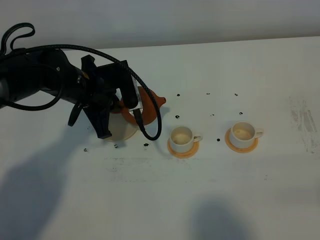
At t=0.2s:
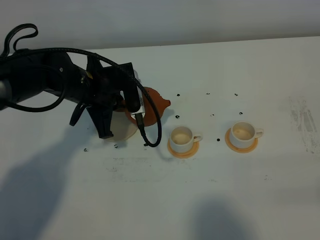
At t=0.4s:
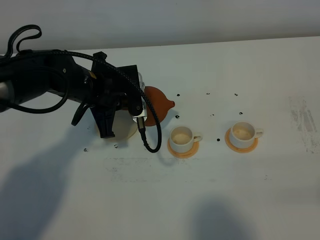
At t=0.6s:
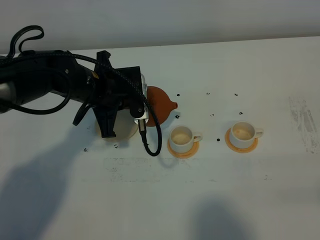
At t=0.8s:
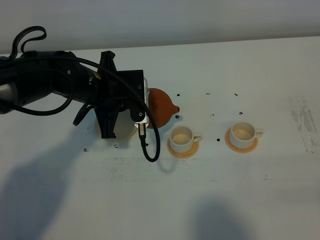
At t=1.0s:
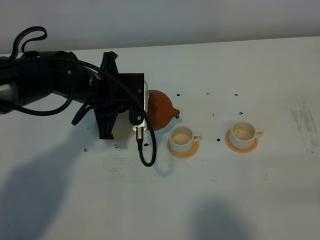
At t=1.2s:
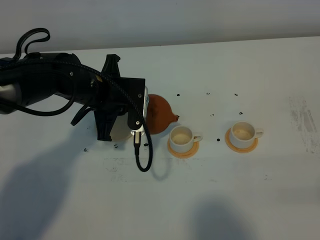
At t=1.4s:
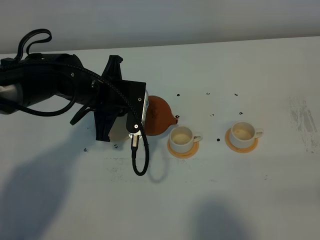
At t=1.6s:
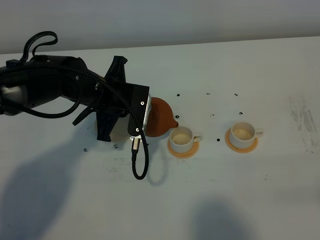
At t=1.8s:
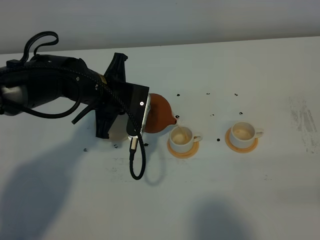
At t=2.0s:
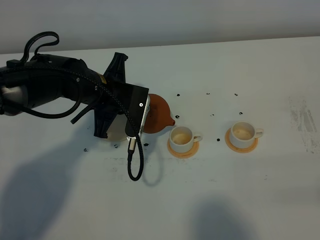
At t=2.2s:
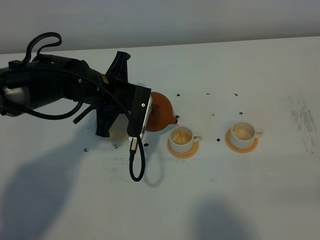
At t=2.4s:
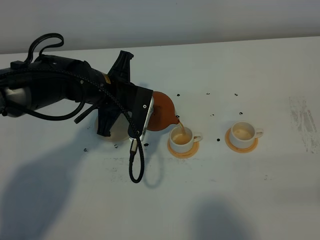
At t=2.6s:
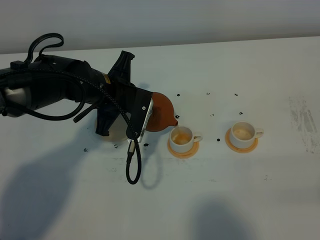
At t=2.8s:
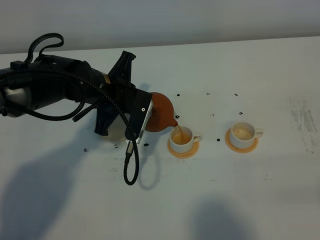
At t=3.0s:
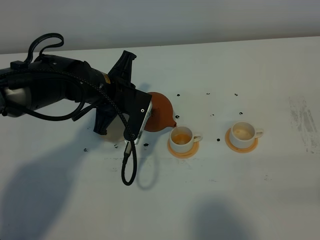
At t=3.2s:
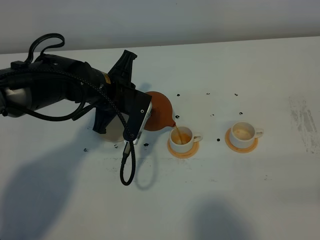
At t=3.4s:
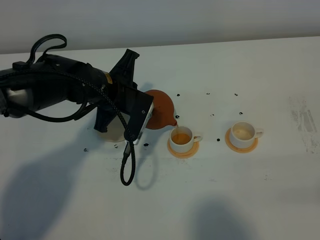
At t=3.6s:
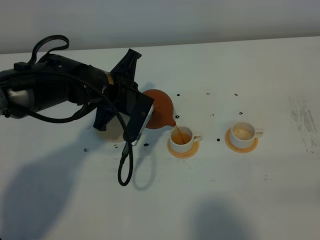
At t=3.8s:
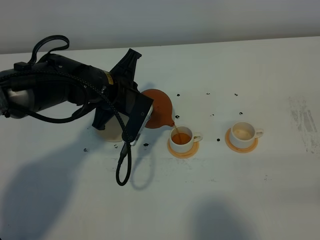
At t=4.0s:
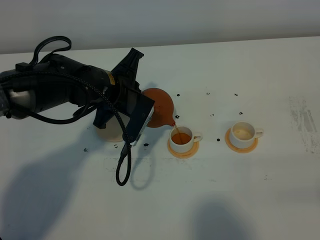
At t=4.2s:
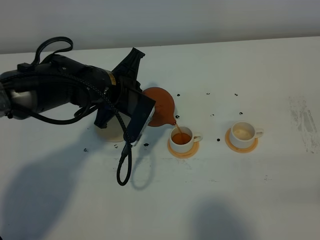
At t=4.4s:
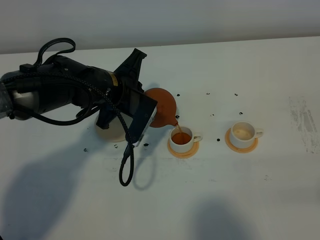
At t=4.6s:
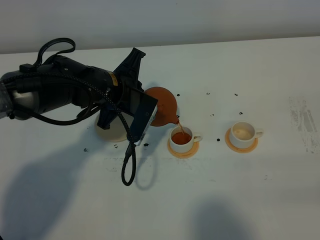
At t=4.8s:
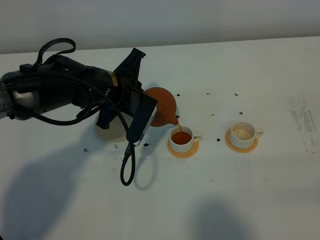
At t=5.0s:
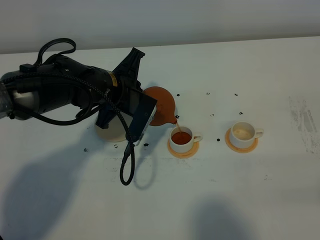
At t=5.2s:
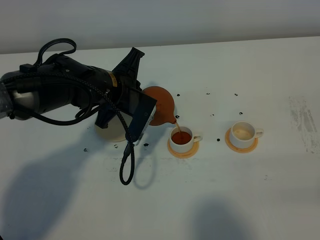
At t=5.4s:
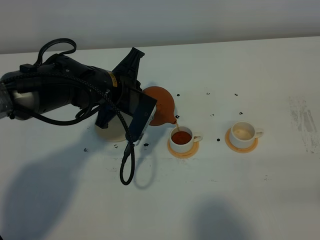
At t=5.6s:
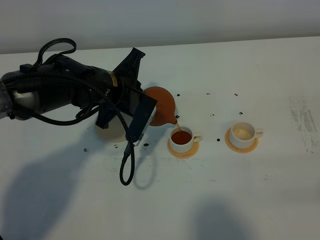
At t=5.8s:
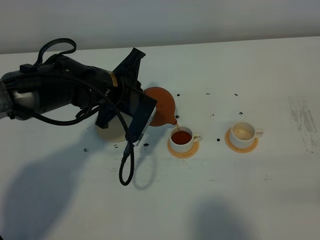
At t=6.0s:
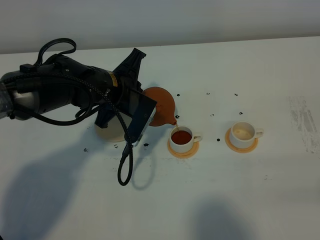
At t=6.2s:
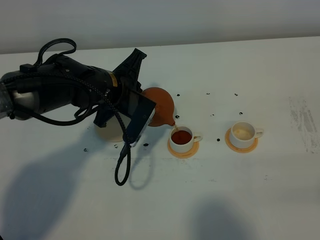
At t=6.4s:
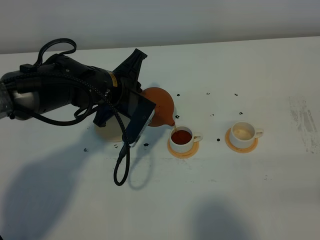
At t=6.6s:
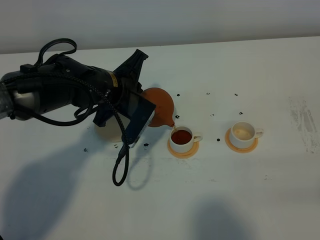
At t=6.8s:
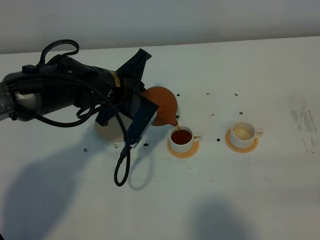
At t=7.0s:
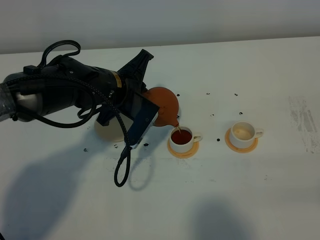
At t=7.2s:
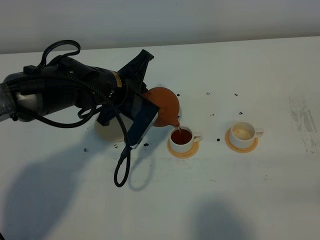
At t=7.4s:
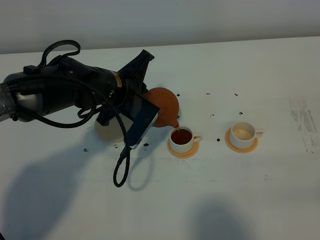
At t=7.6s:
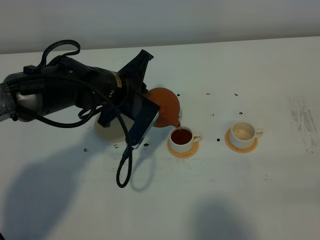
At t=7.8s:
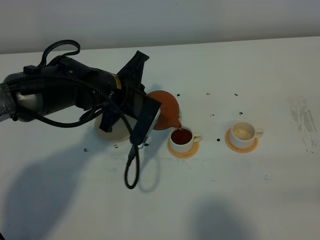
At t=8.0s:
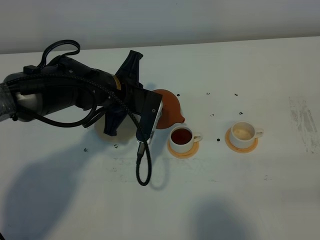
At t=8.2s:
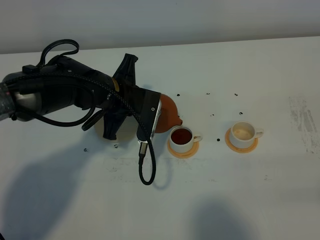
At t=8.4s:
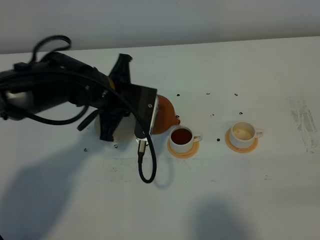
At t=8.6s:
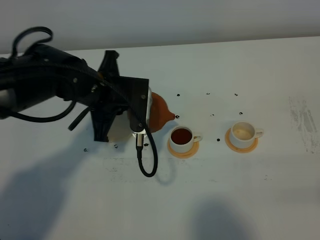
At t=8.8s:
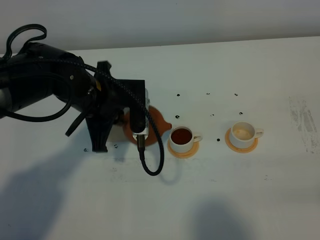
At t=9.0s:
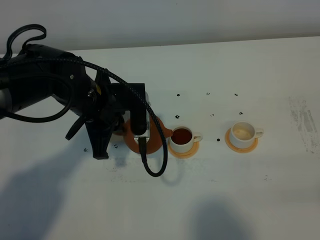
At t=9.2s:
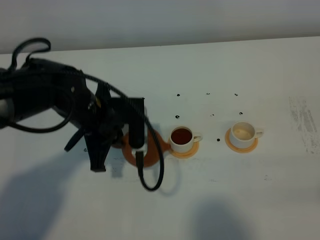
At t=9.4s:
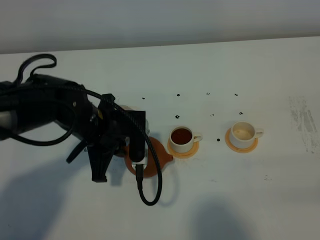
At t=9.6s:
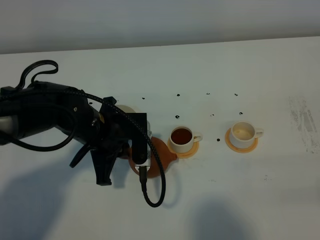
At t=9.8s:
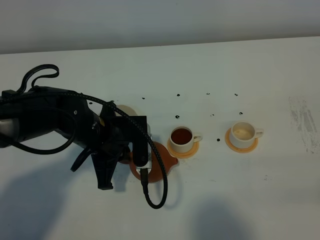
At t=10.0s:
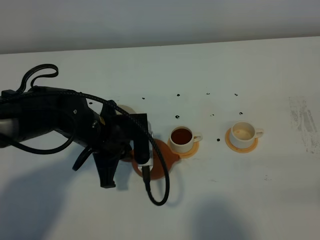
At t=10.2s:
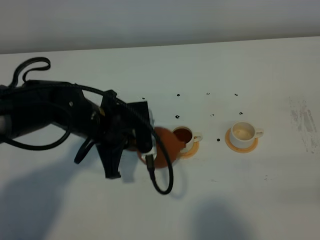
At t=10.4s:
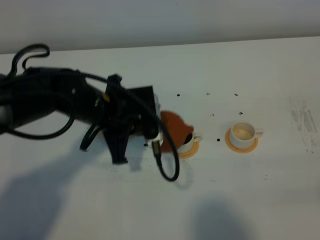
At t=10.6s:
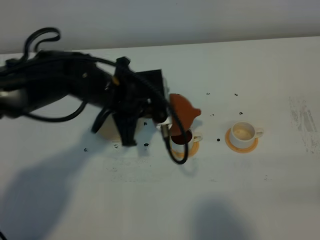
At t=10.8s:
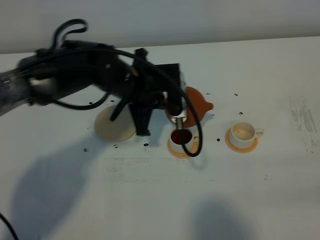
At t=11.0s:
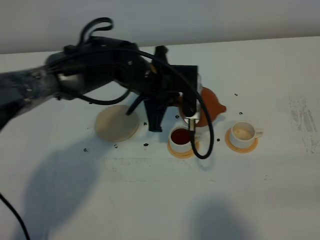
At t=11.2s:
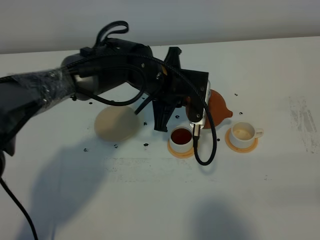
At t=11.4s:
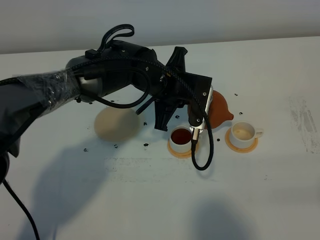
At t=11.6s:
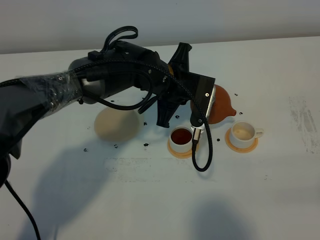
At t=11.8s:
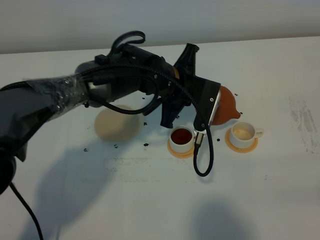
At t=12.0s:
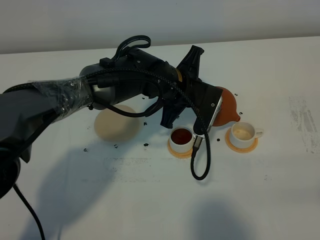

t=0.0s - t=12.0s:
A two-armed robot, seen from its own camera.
Task of the whole recording: grasp the brown teapot and pour the tea into the two white teacups one by one, put the brown teapot back in its original place.
Step, t=0.0s - t=8.8s: Pour tea into the teacup with the left gripper.
t=1.6s - t=3.0s: The grippers stay close to where they were, moving slightly.
t=3.0s - t=4.4s: The grippers stay close to where they were, moving slightly.
t=4.4s - t=6.0s: The two grippers keep their place.
t=6.0s - t=7.6s: There are only small adjustments of the grippers.
t=9.0s - t=10.4s: The grippers move only a little.
t=10.4s - t=12.0s: The left gripper shifts about 15 cm to the right and forward.

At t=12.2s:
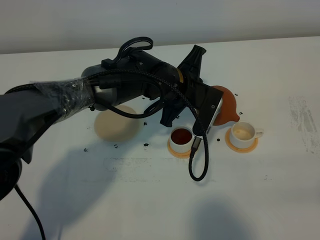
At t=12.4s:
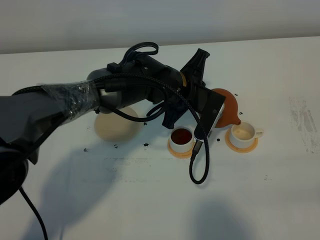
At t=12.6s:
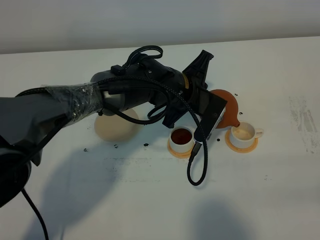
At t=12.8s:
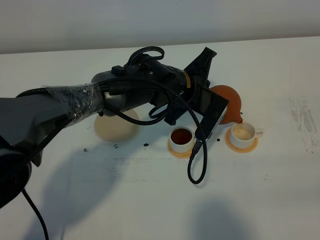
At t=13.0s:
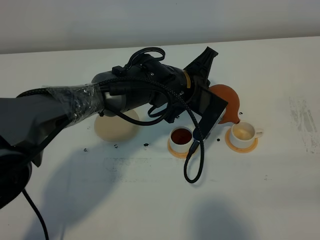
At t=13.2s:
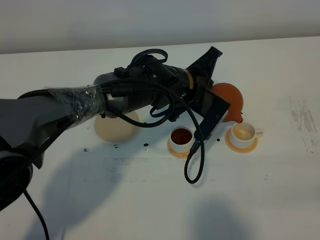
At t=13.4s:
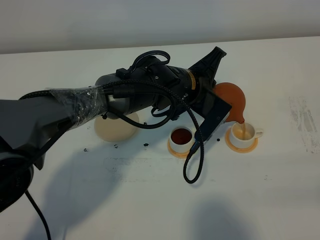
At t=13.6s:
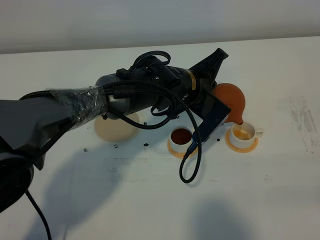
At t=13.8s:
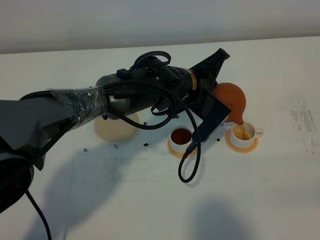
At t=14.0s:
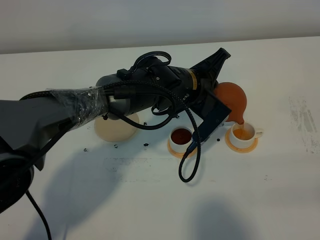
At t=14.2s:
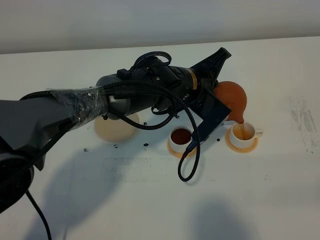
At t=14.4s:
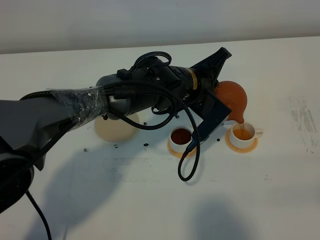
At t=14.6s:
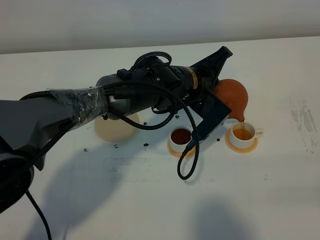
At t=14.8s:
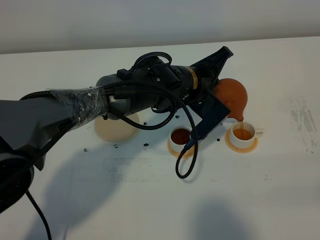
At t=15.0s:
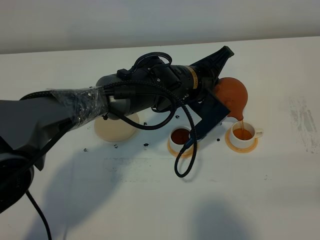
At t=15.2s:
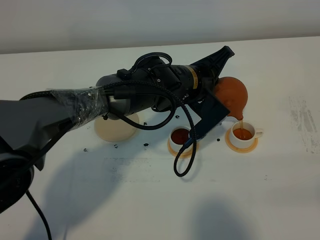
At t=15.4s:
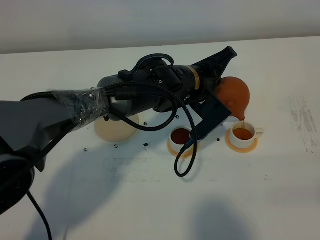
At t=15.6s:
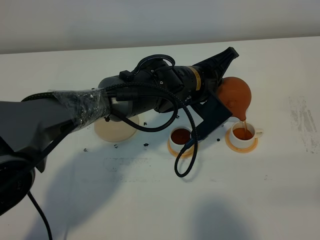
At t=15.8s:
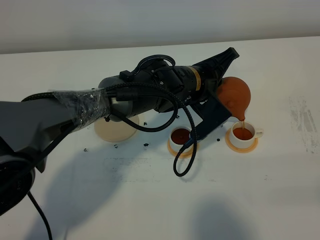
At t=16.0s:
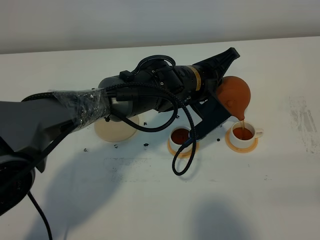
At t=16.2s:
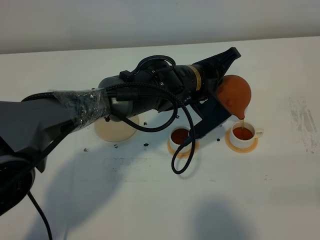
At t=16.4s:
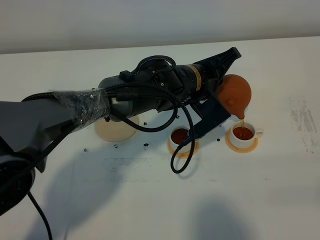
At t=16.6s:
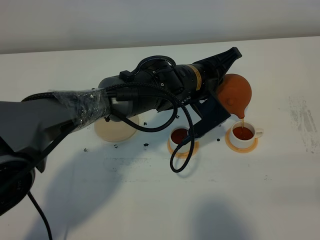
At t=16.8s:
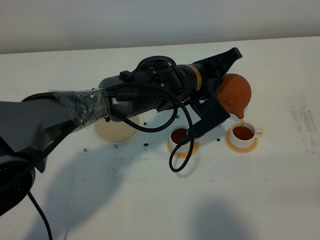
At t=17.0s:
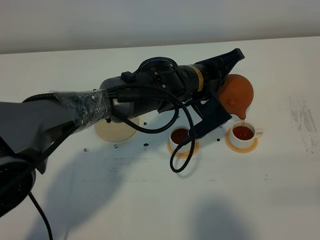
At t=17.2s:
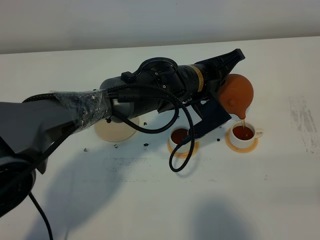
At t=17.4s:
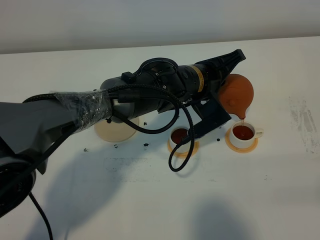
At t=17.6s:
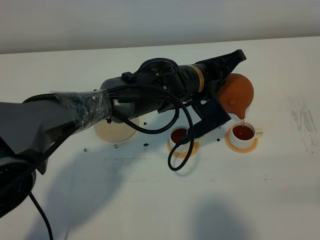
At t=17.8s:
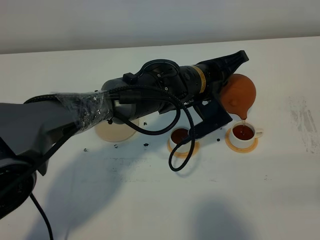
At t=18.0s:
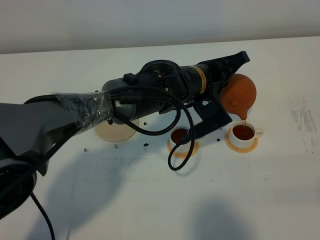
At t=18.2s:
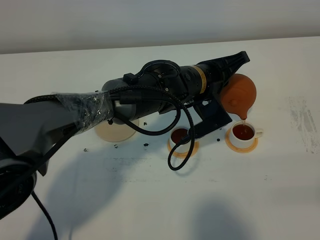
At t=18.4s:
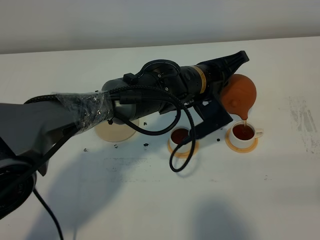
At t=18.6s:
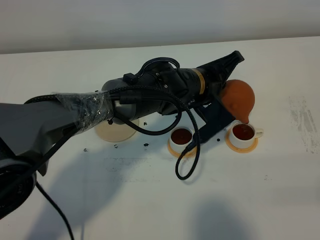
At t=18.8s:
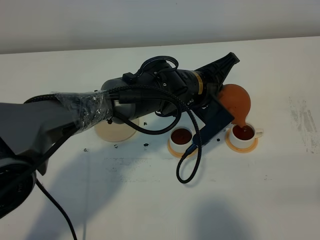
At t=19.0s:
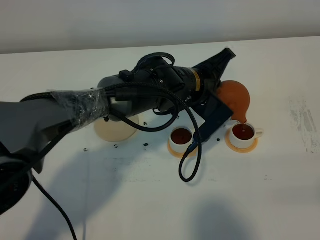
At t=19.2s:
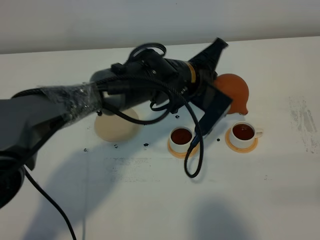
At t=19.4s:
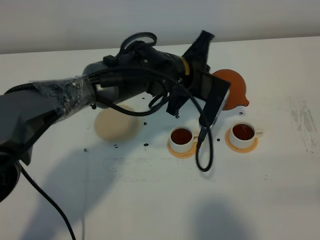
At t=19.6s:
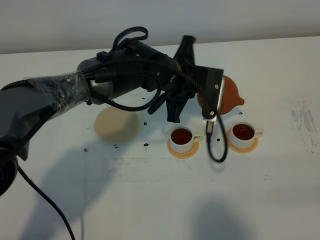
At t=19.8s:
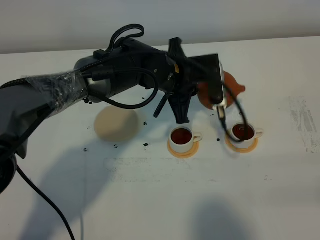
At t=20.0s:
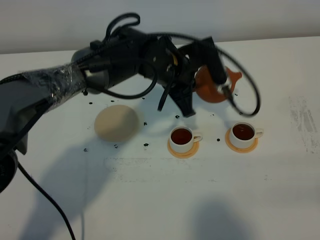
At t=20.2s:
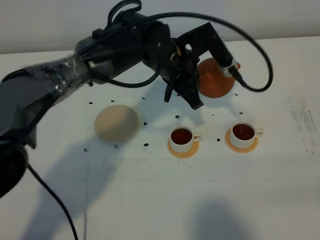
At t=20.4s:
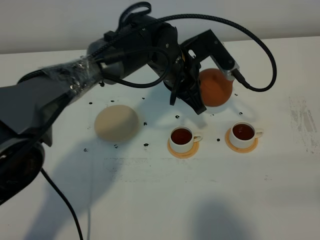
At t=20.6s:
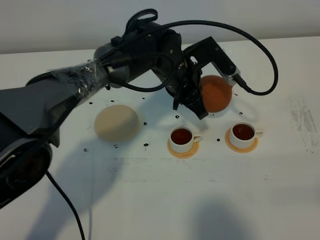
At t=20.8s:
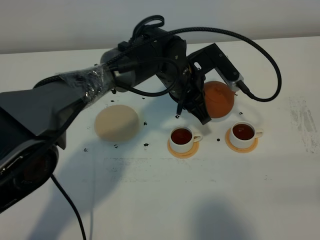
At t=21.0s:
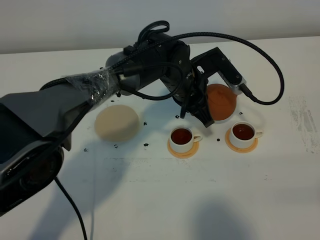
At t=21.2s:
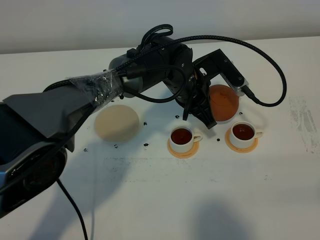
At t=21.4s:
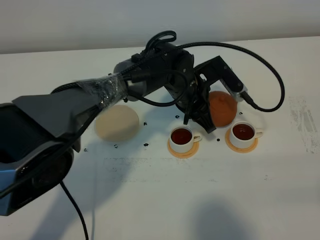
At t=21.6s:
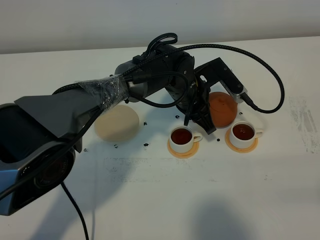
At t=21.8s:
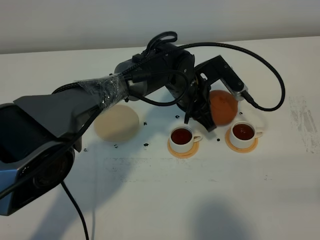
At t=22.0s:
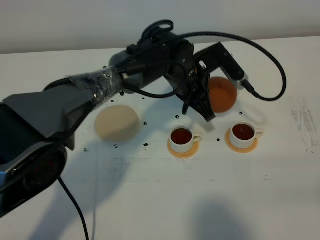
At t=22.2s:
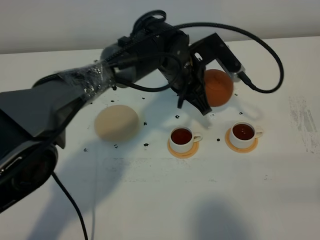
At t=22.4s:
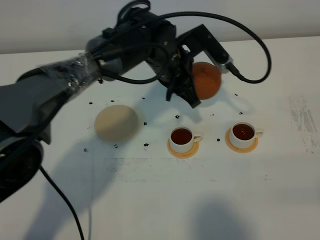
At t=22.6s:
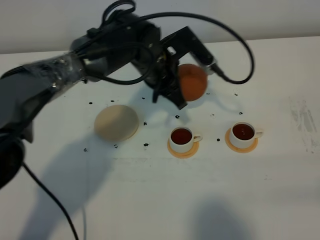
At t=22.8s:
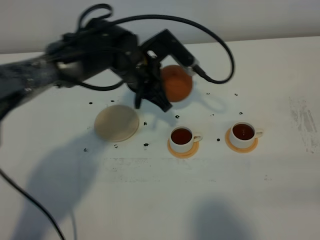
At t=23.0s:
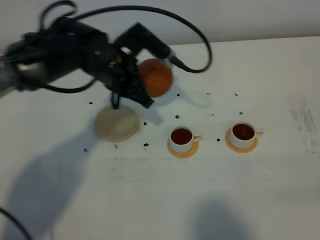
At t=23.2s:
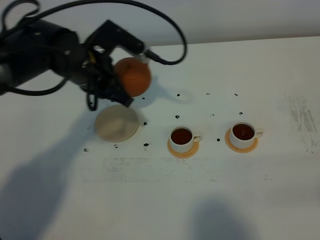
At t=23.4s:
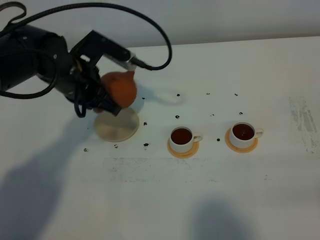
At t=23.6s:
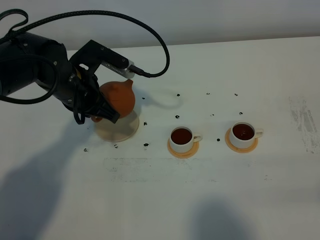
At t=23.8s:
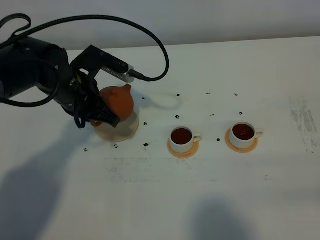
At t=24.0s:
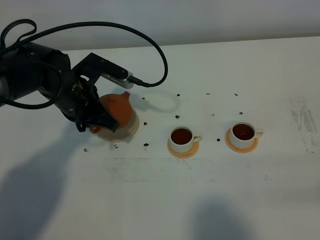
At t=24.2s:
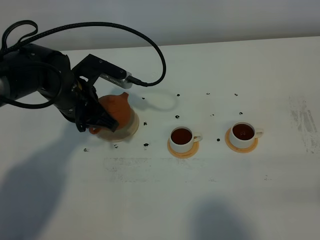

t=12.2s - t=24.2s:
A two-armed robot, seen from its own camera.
Task of the whole recording: grasp the brown teapot and pour the tea into the two white teacups one by one, put the brown teapot back in its original place.
Step, t=12.2s - t=19.6s: Pour tea into the teacup with the left gripper.
t=13.8s - t=16.6s: The grippers move only a little.
t=16.6s - t=18.2s: The grippers stay close to where they were, moving slightly.
t=18.2s - t=19.8s: The left gripper ends up roughly 5 cm from where it was.
t=21.2s - t=22.6s: The left gripper is displaced to the left by roughly 5 cm.
t=22.6s - t=24.2s: The left gripper goes approximately 15 cm to the left.
